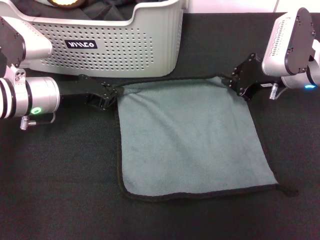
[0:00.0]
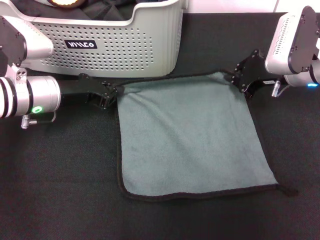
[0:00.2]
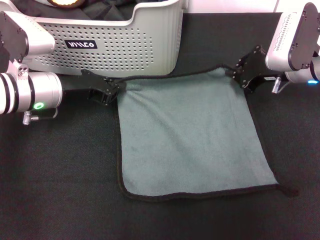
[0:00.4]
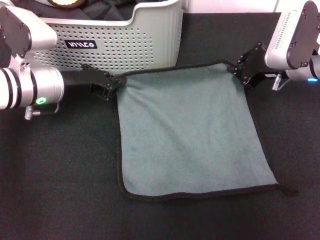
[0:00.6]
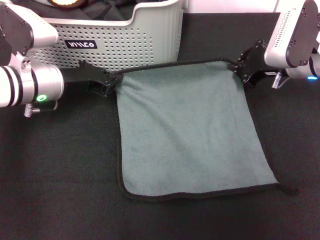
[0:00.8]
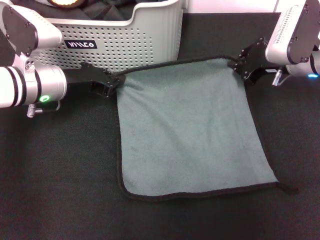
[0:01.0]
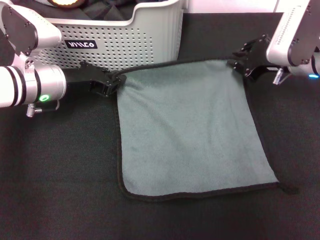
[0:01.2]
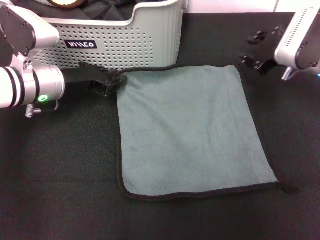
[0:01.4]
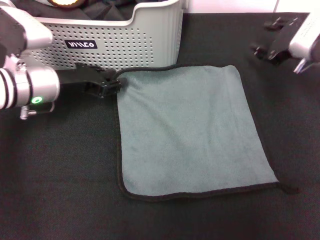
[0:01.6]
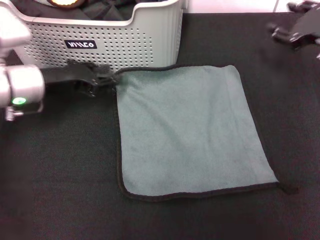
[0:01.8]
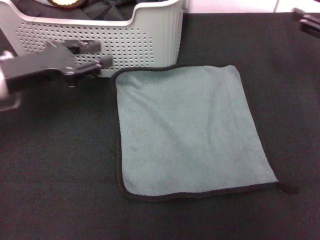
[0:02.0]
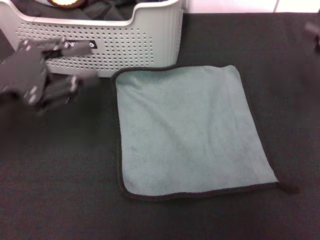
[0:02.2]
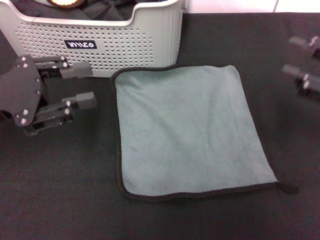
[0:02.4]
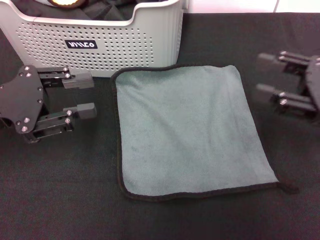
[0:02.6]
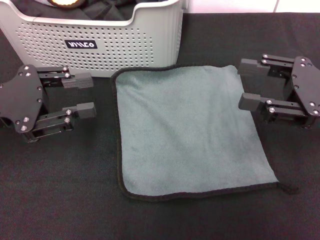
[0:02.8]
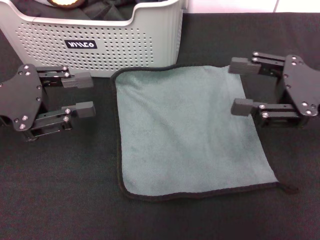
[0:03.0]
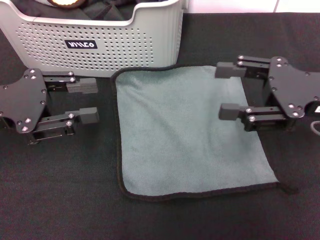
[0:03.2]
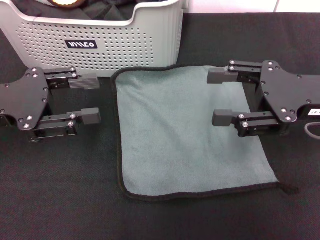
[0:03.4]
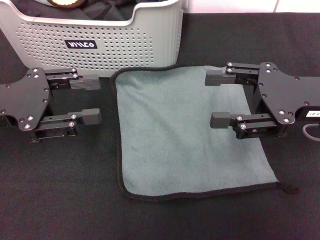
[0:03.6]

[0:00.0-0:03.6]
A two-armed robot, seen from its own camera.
Task of the whole recording: pick up the towel from the storage box and lay it flat on the black tablecloth.
0:00.0 to 0:01.8: The right gripper moves to the right, some 10 cm, and opens, while the left gripper opens its fingers.
0:01.8 to 0:03.6: The right gripper goes roughly 10 cm backward. Meanwhile the left gripper is displaced backward and upward by about 10 cm.
